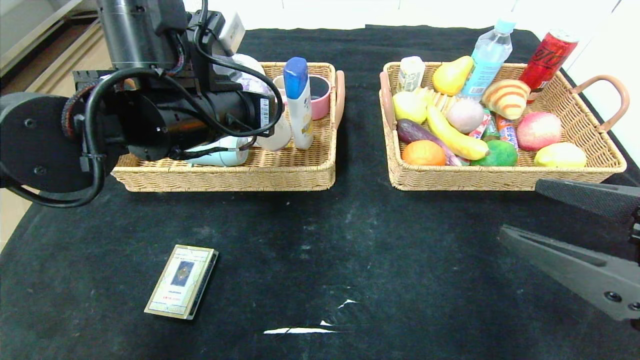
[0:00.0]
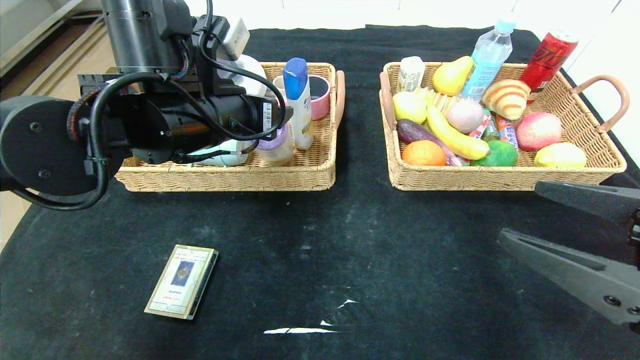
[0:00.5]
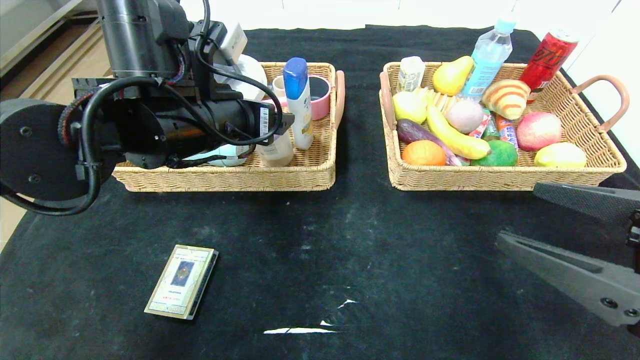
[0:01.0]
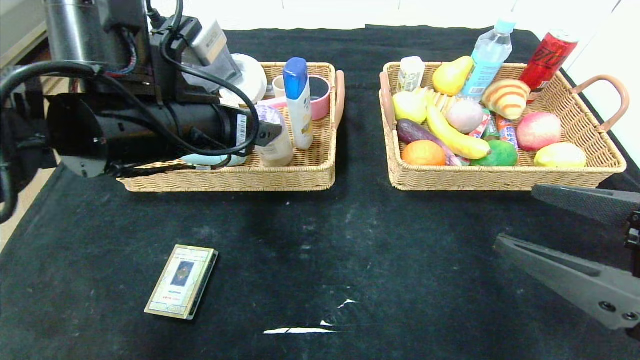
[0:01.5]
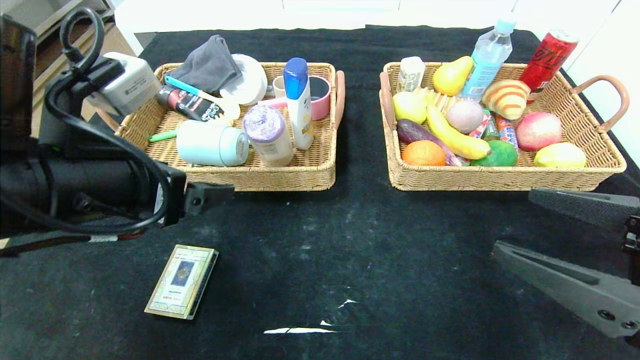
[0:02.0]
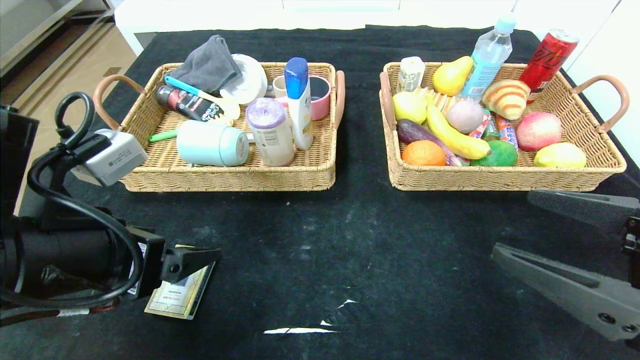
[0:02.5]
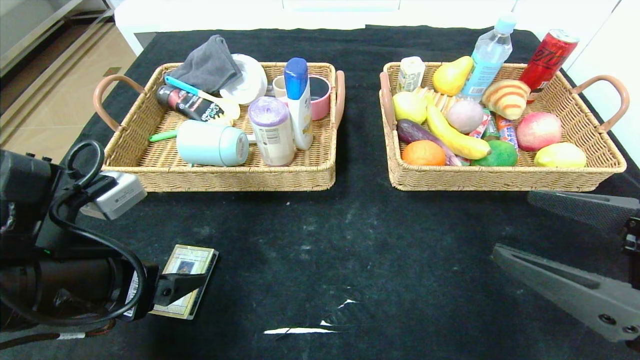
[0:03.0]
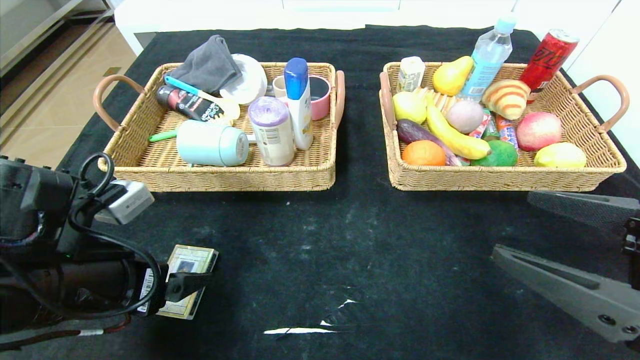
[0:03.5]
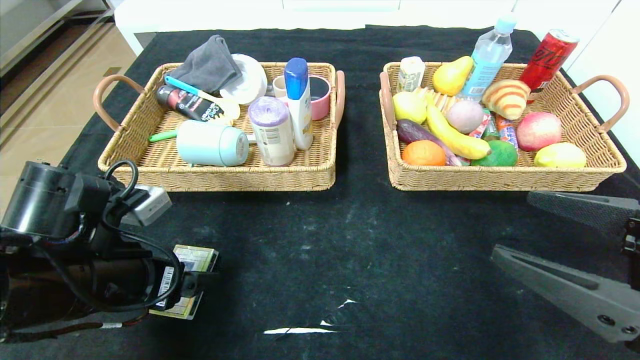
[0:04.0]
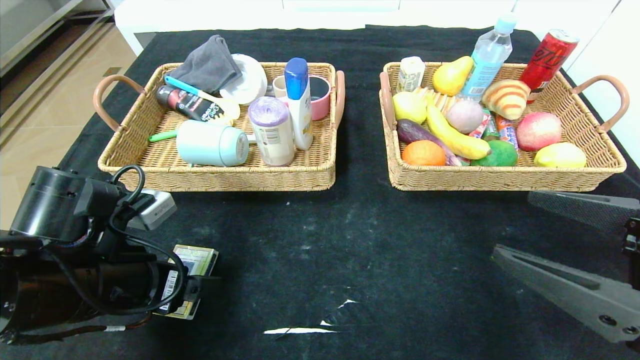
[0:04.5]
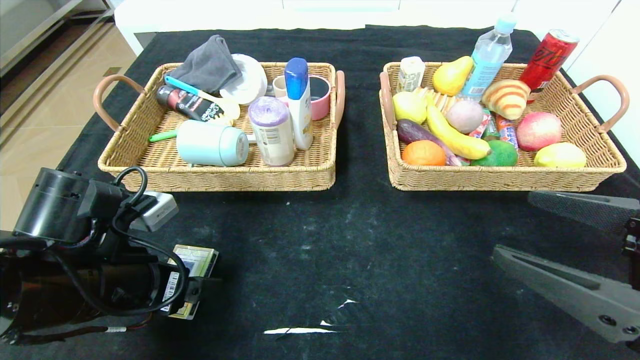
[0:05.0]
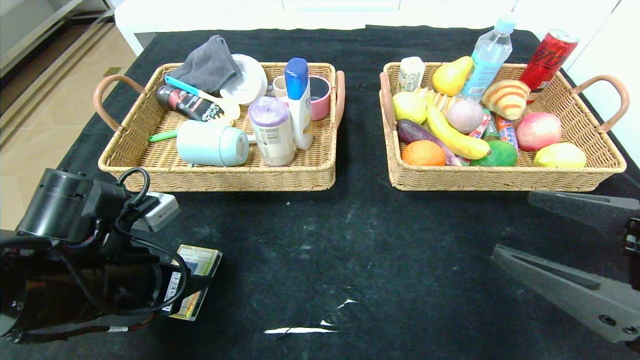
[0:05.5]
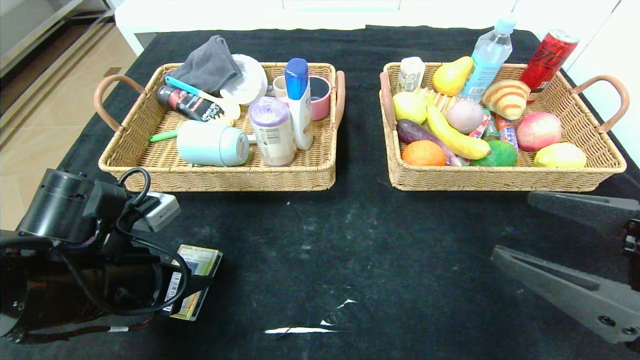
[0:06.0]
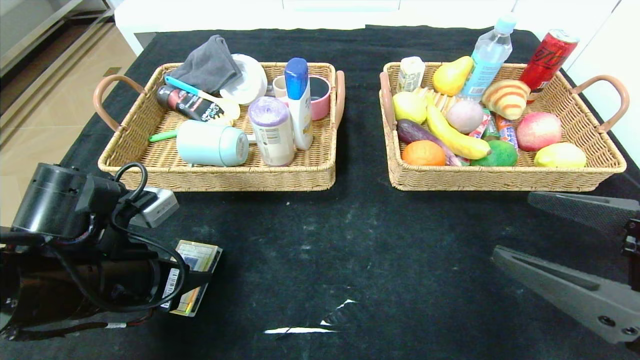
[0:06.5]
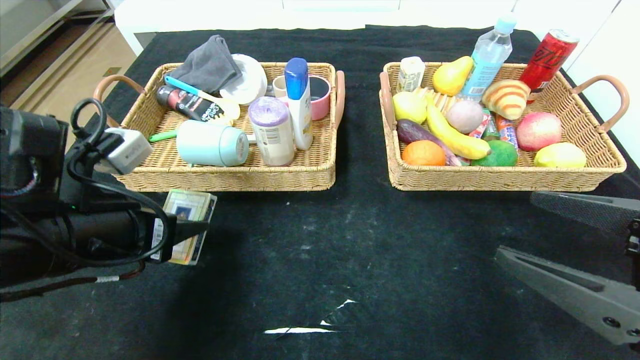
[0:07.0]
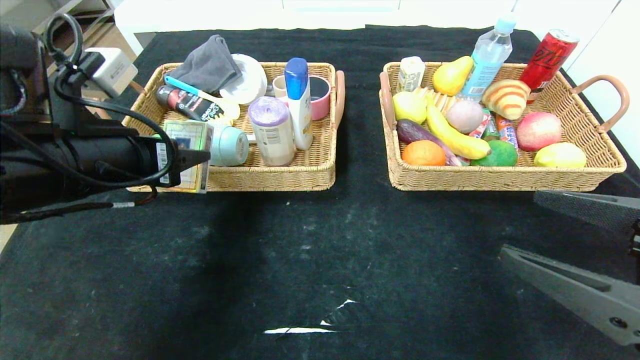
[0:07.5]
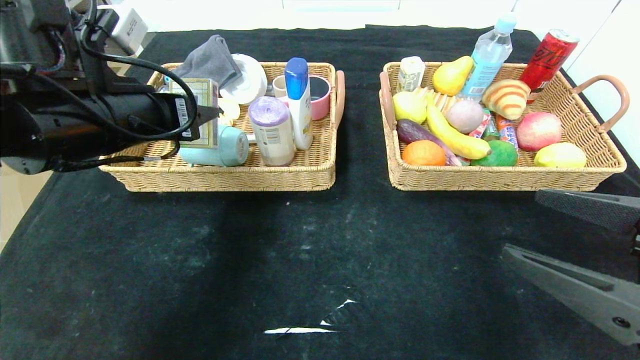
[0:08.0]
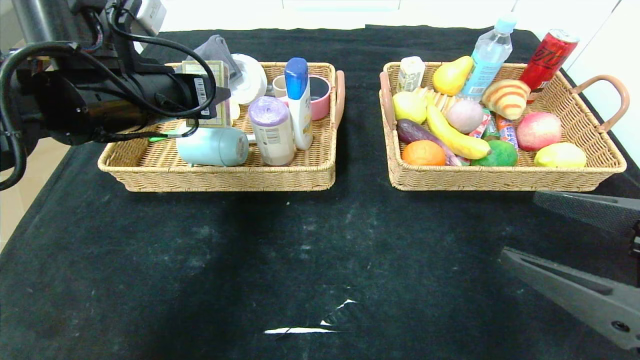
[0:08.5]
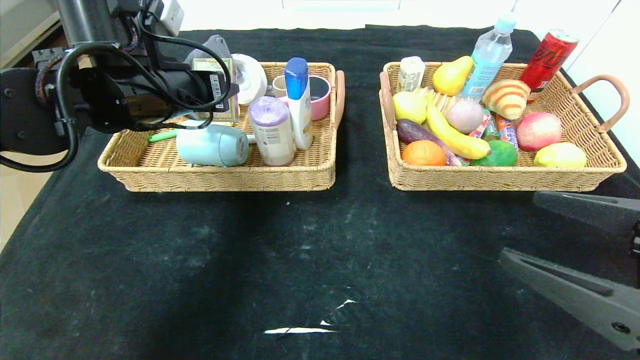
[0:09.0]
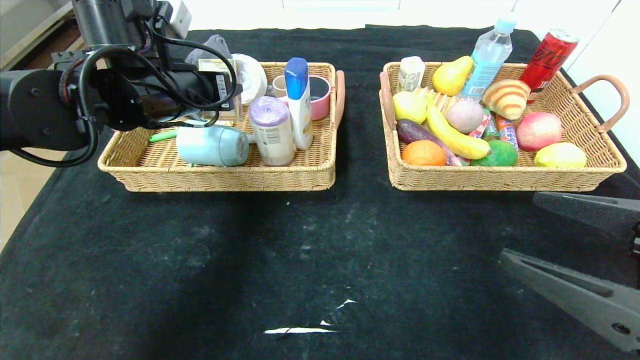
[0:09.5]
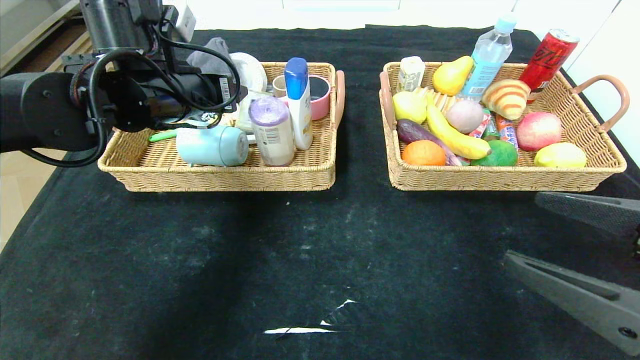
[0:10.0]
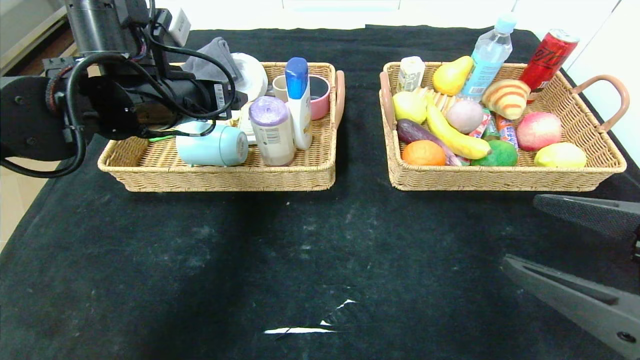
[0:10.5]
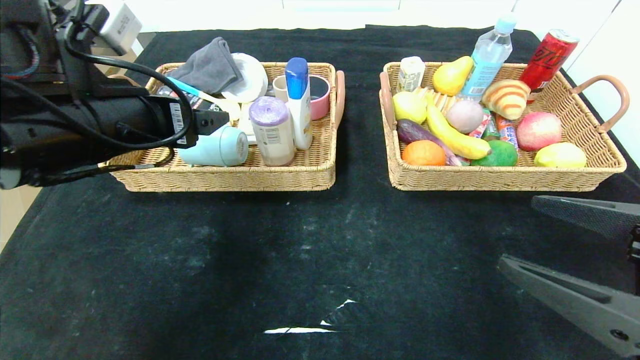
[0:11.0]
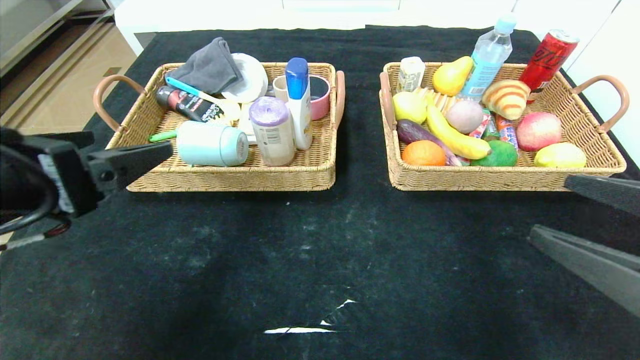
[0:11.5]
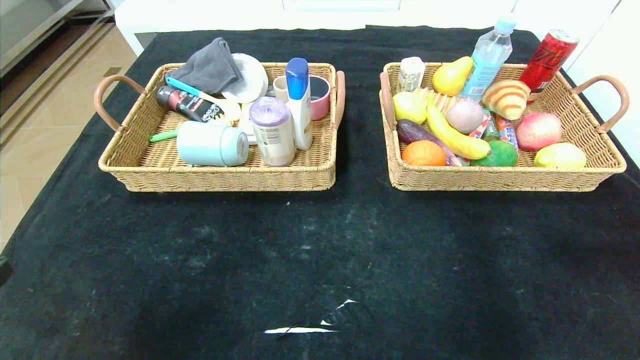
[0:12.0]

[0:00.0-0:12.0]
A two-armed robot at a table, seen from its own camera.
Step, 0:00.0 to 0:02.0: Grasp the purple garbage bag and put it in the left basket.
Step, 0:02.5 to 0:10.5: Grasp the playing cards and put it in the left basket.
0:00.0 to 0:02.0: The left gripper heads backward and to the left, covering approximately 15 cm, and opens.
0:02.0 to 0:04.0: The left gripper travels downward by approximately 10 cm.
0:04.0 to 0:06.0: The left gripper closes its fingers.
0:06.0 to 0:08.0: The left gripper goes some 15 cm upward and forward.
0:08.0 to 0:10.0: The left gripper travels forward by about 10 cm.
0:10.0 to 0:12.0: The right gripper travels to the right and backward by approximately 10 cm. Meanwhile the left gripper goes approximately 35 cm backward.

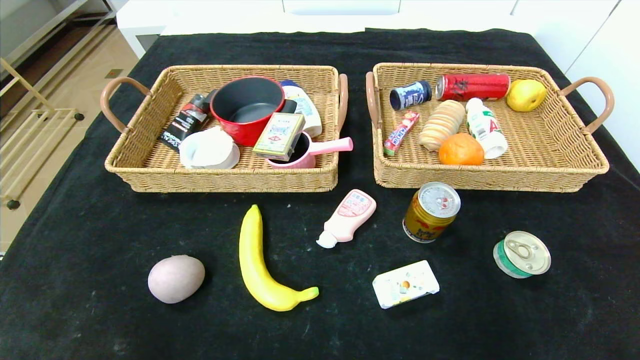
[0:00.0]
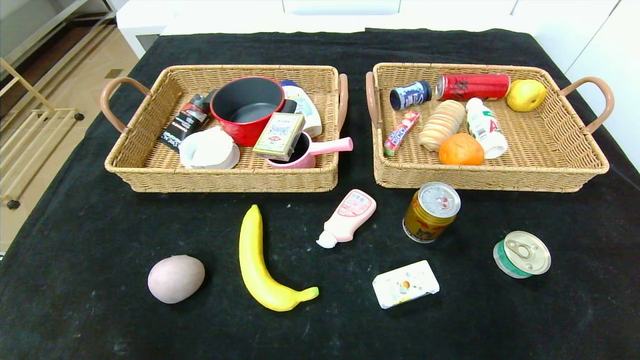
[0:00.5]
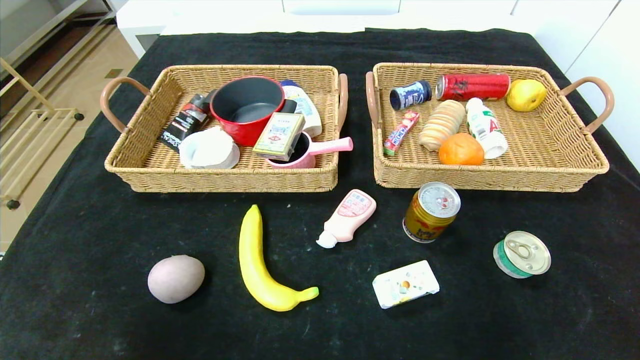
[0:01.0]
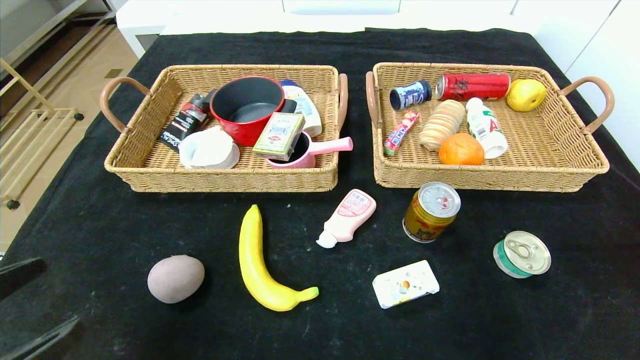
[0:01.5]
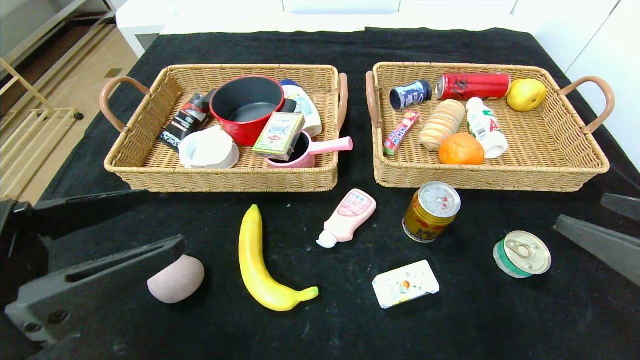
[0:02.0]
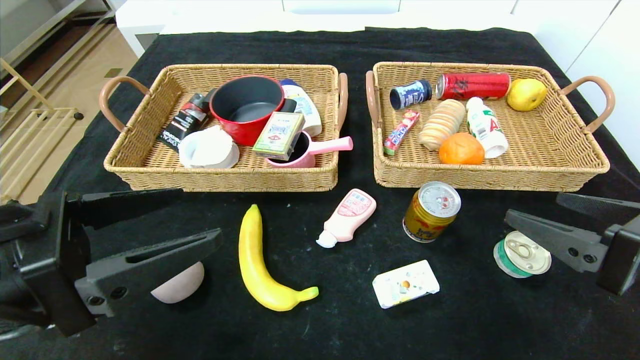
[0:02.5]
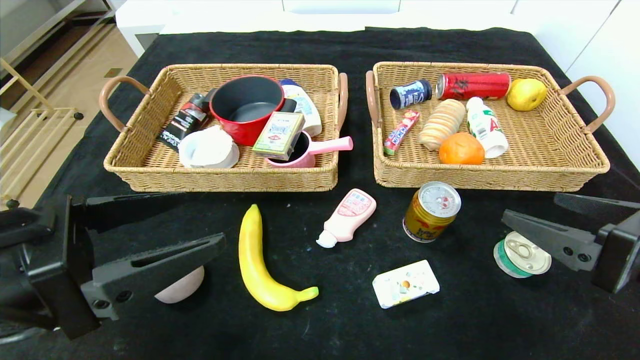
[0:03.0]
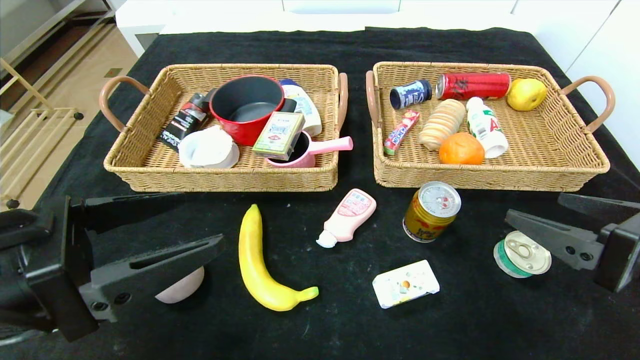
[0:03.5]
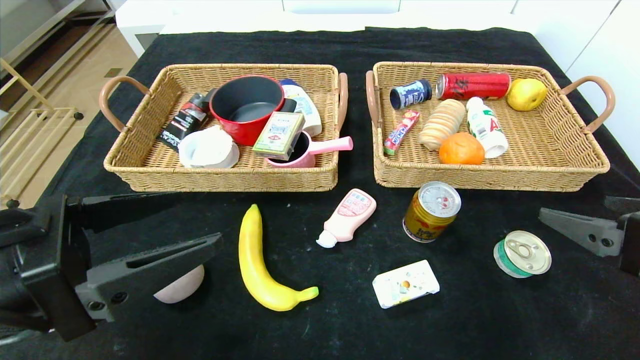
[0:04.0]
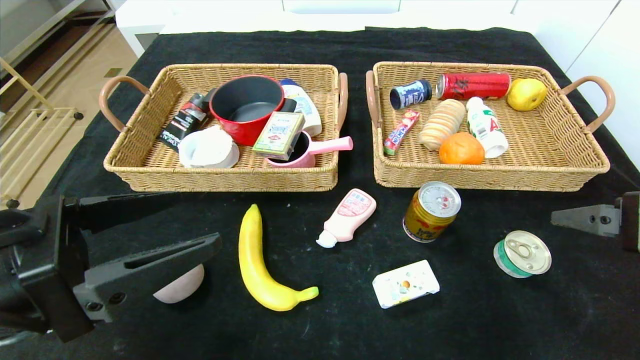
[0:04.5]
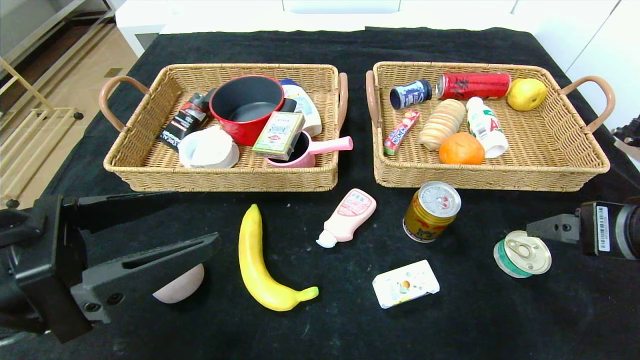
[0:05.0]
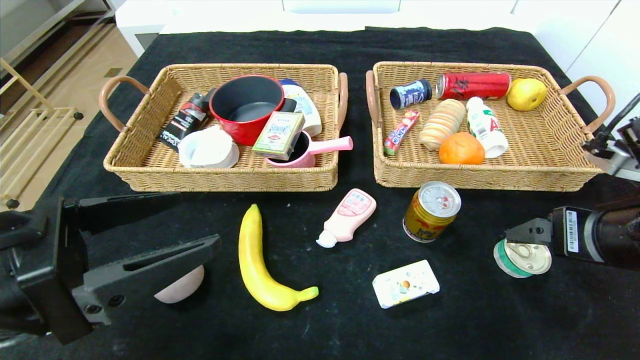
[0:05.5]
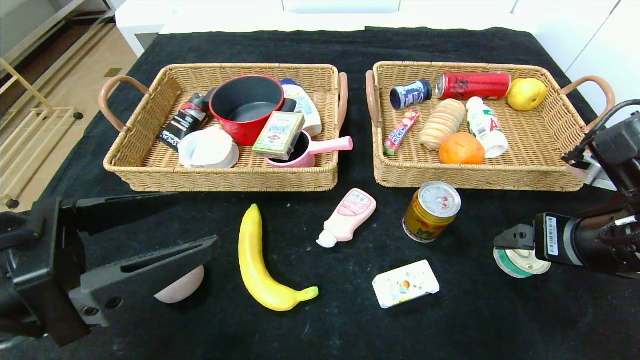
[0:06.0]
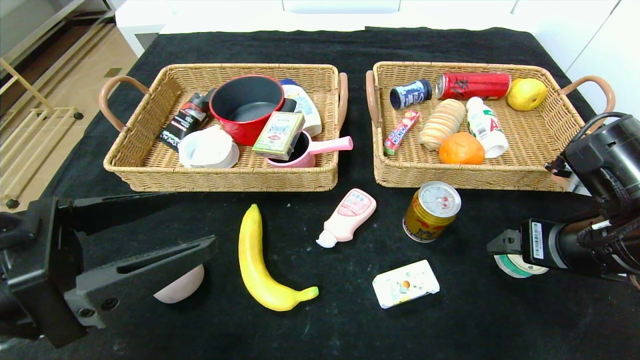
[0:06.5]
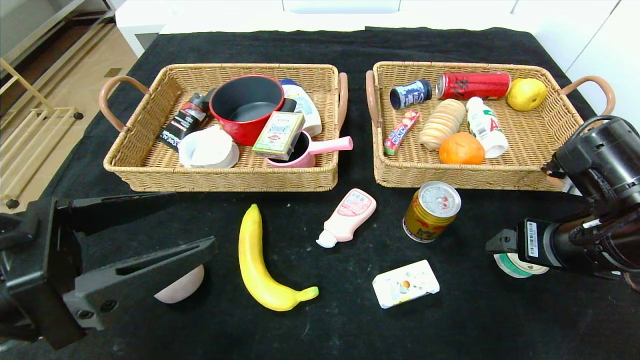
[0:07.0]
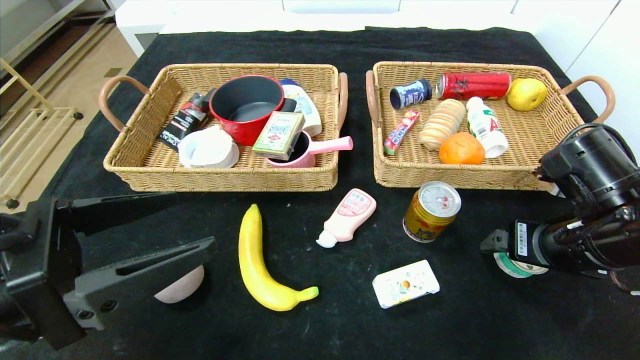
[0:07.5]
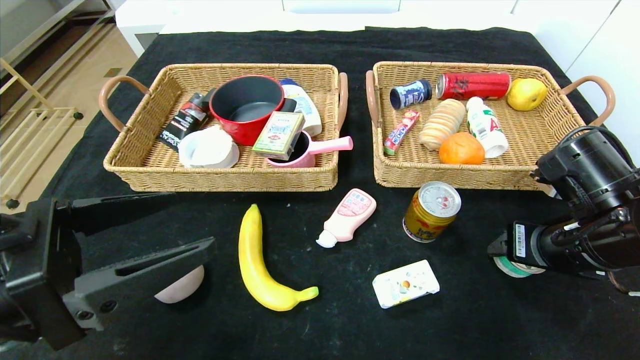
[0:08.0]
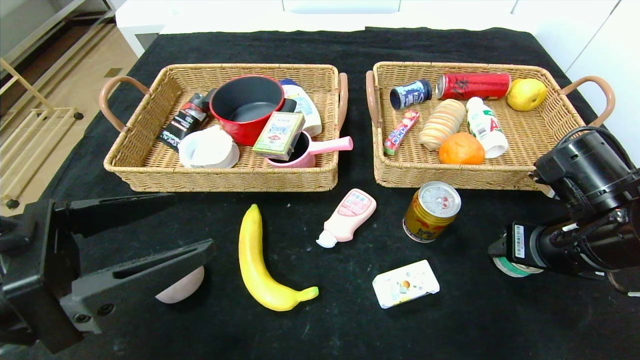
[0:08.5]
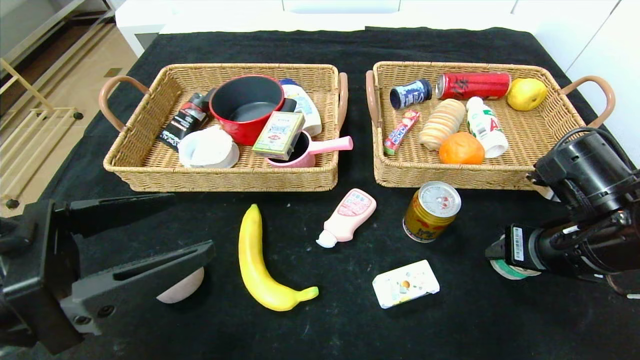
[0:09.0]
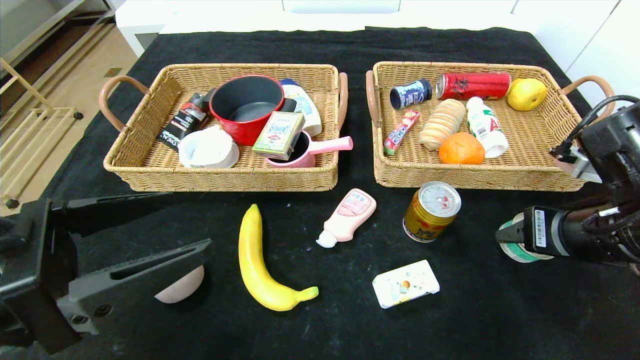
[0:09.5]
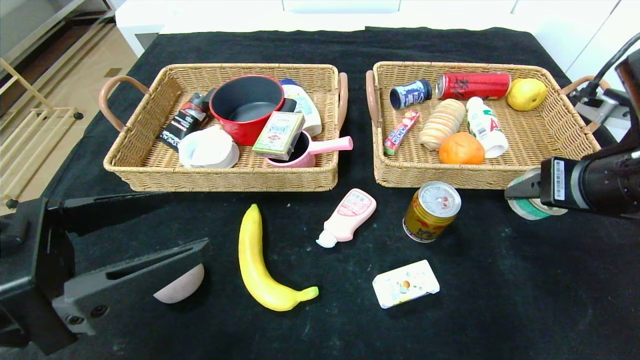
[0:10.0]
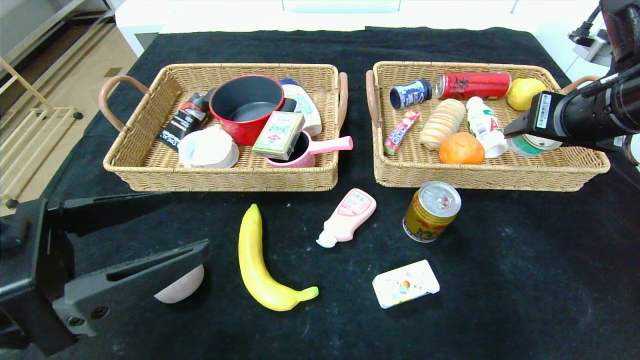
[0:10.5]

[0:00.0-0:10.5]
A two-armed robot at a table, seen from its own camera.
0:00.0 to 0:02.0: The grippers both shift upward and forward by about 20 cm.
0:04.0 to 0:06.5: The right gripper is displaced forward by some 10 cm.
0:06.5 to 0:08.5: The right gripper closes.
0:08.5 to 0:10.5: The right gripper moves upward, about 15 cm.
